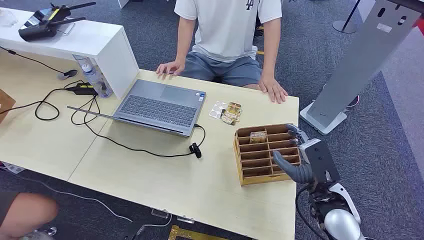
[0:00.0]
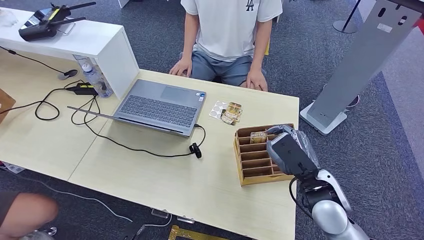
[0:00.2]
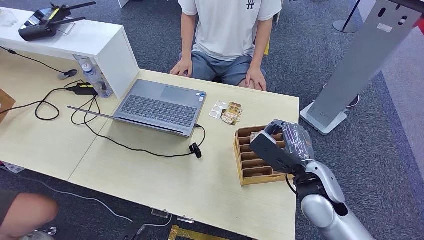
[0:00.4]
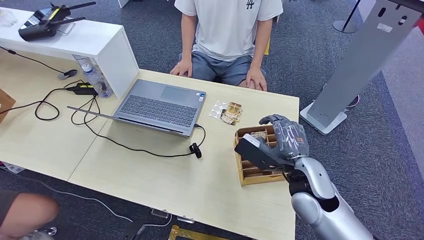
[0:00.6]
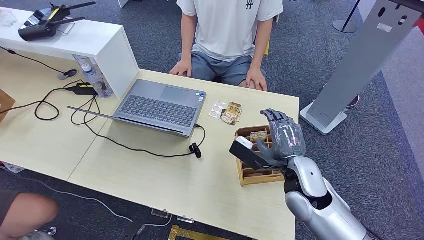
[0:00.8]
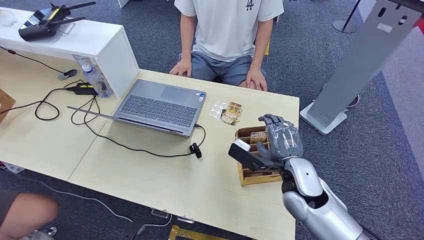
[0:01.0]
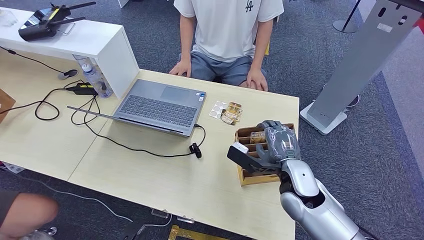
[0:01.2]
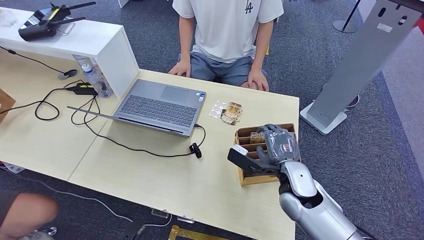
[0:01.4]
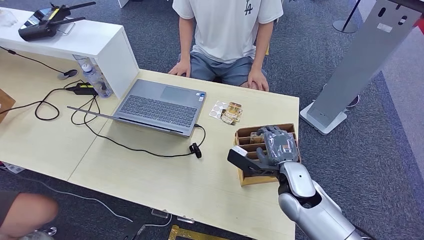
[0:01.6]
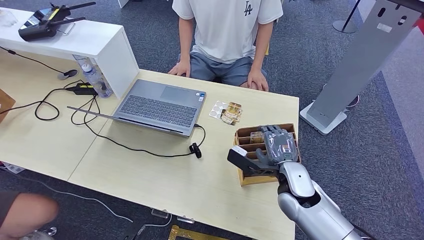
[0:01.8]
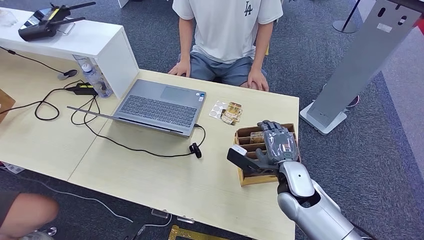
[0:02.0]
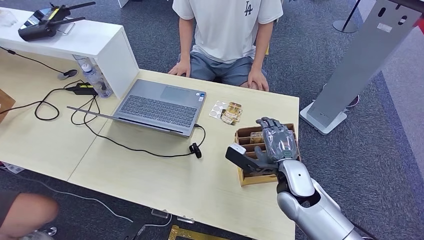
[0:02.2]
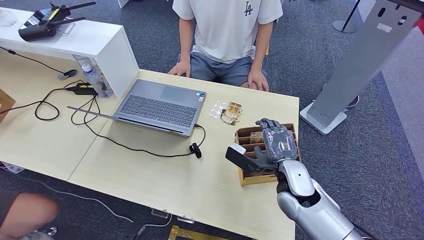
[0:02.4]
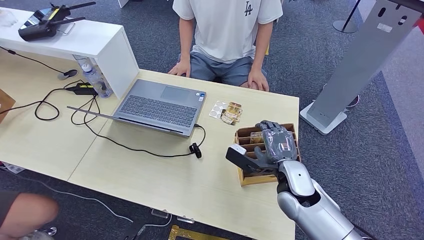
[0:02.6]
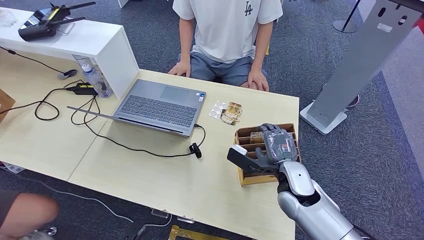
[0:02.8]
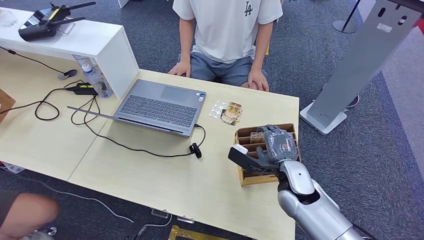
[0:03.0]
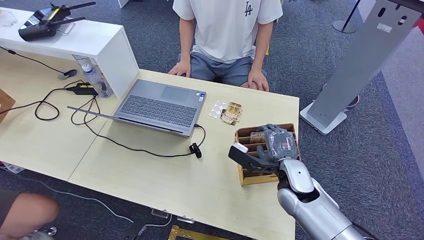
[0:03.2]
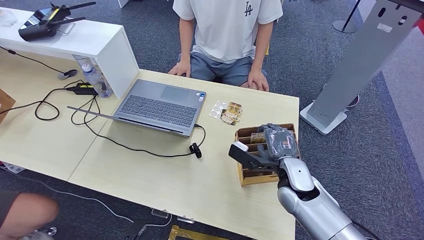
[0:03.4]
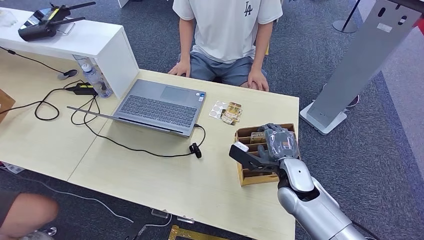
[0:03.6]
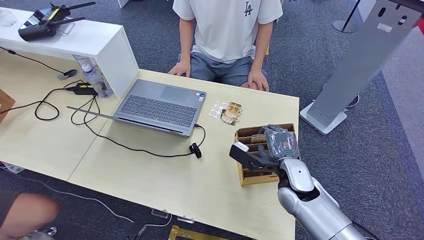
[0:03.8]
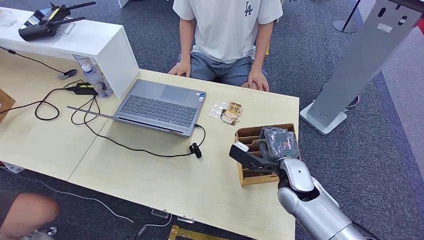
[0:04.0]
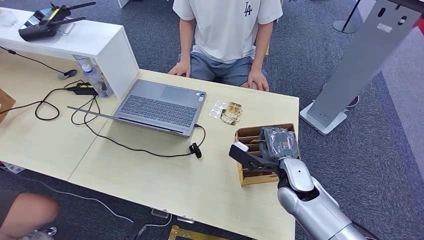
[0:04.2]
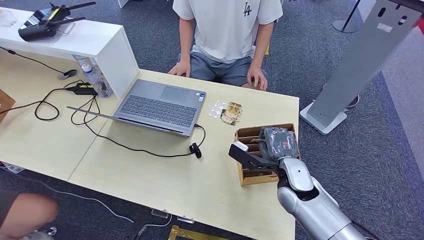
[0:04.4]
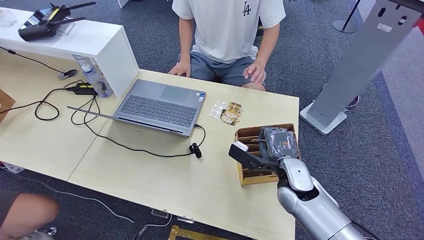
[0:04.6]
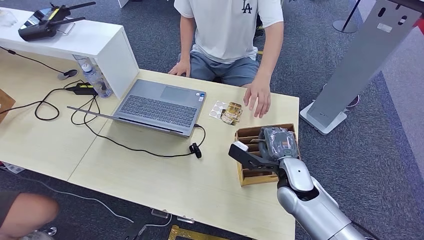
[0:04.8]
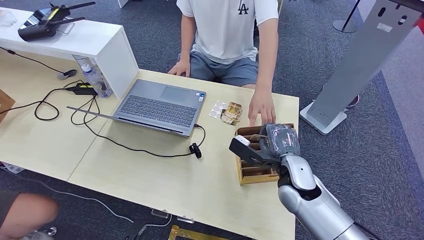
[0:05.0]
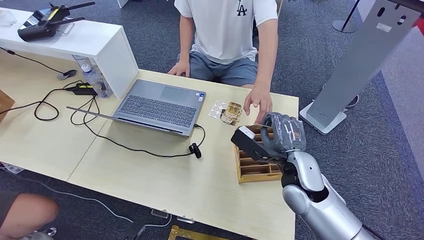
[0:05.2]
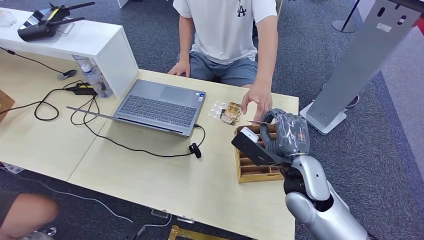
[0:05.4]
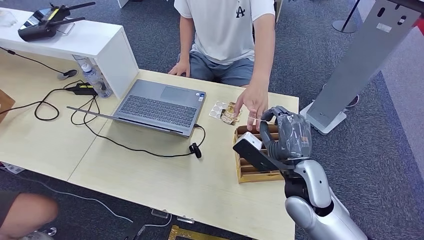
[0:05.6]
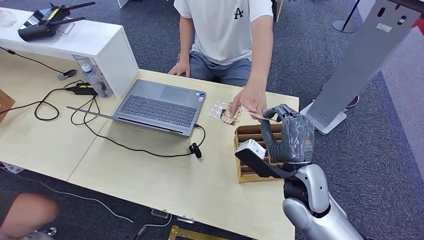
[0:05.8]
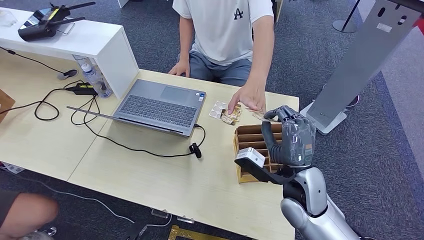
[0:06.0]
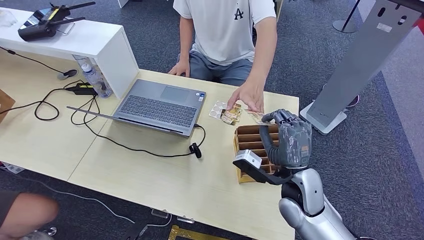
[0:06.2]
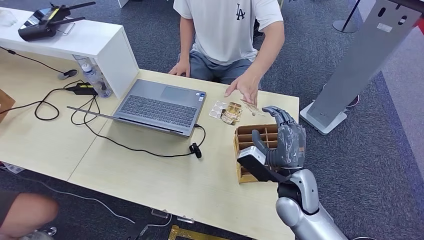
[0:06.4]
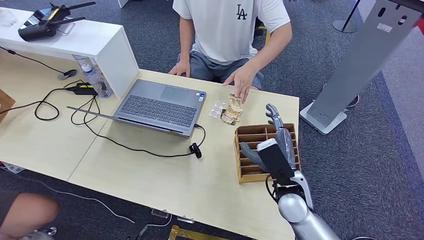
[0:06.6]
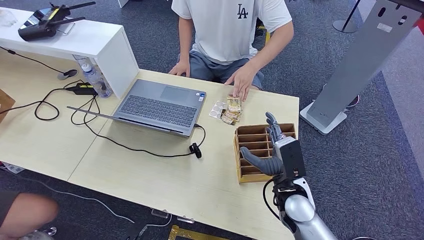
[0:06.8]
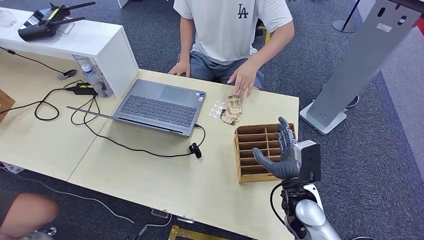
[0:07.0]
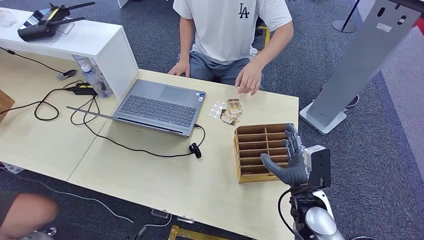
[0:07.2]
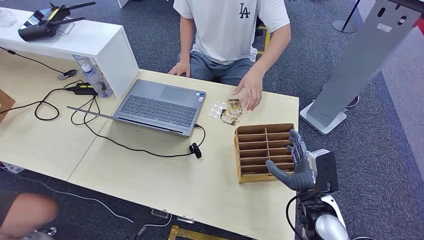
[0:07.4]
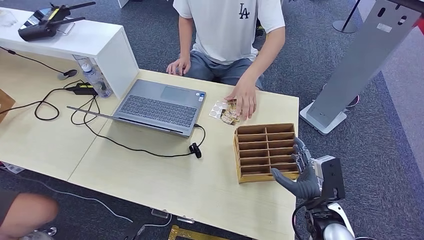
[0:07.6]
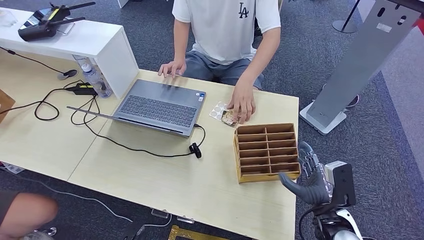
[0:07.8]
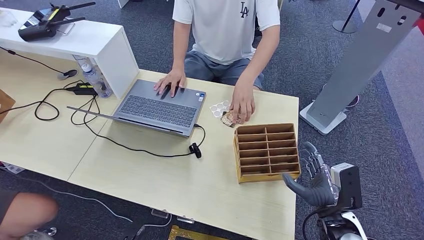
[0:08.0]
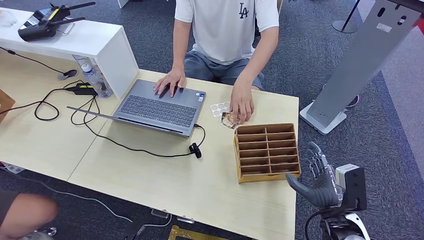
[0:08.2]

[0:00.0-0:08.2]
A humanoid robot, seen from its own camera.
Step, 0:00.0 to 0:05.4: Pick up the key card from the card box.
Step, 0:05.6 to 0:08.2: Hand the key card to the target.
0:01.6 to 0:03.2: Both hands stay put.
0:03.2 to 0:05.0: The hands make only small movements.
0:06.6 to 0:08.2: The right hand shifts some 15 cm to the right and backward.
